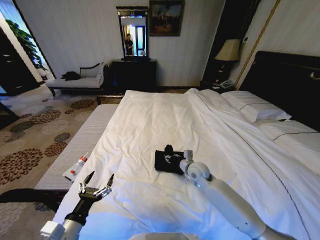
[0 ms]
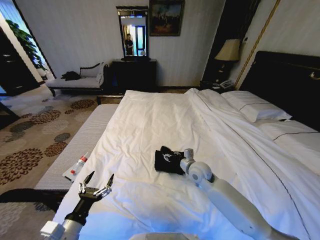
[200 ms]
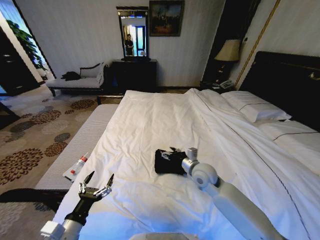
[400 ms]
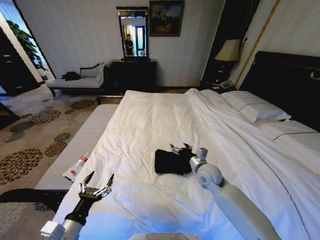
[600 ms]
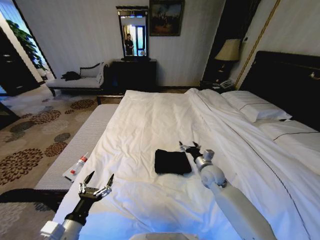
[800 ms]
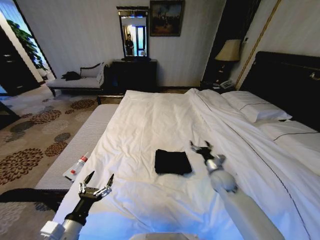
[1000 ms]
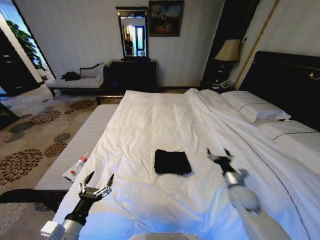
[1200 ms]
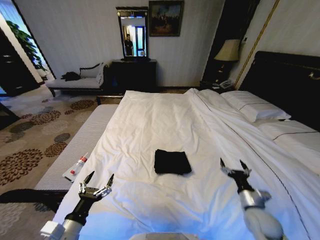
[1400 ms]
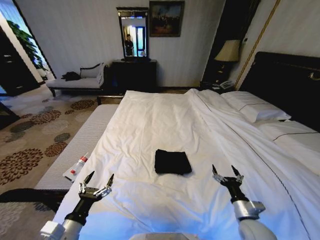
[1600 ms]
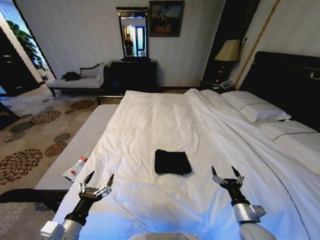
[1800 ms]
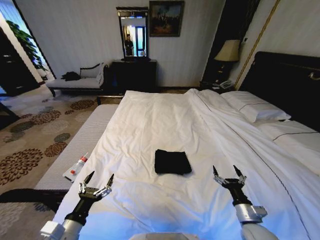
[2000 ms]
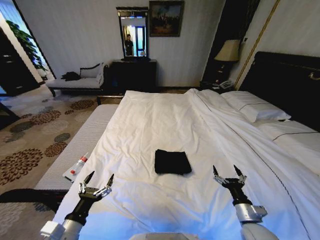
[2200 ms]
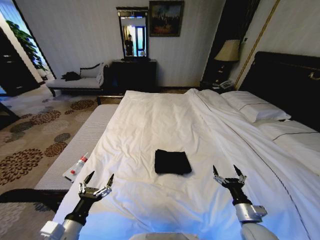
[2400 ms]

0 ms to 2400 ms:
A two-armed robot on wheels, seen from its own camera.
Task of the whole recording: Fold the clothes on the bed.
0 ms to 1200 ms: The right gripper travels to the right and backward by about 20 cm, and opens.
1200 ms to 2400 ms: The right gripper shifts approximately 10 cm backward.
